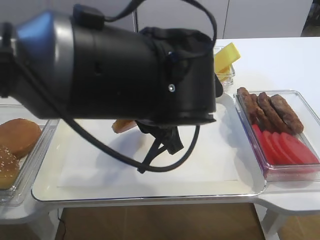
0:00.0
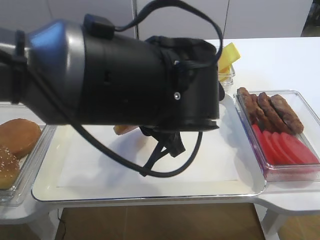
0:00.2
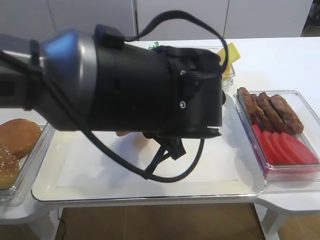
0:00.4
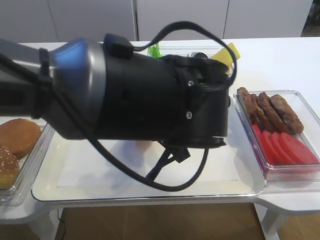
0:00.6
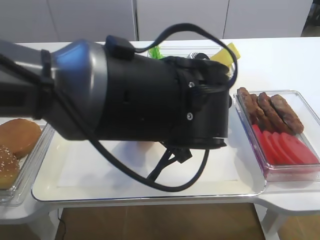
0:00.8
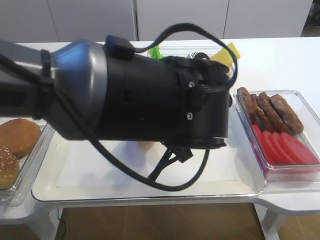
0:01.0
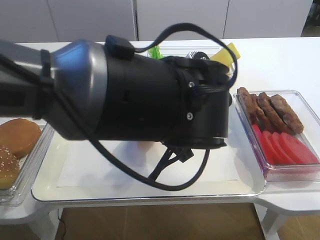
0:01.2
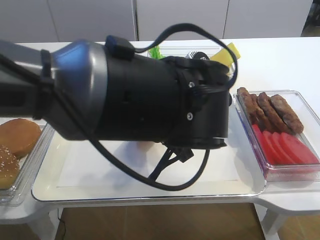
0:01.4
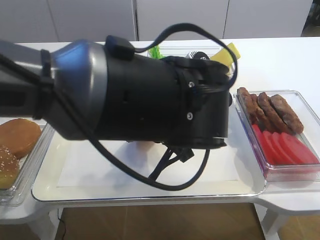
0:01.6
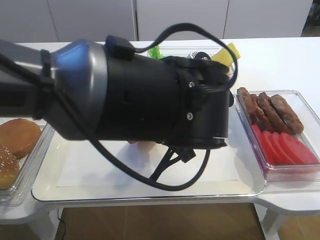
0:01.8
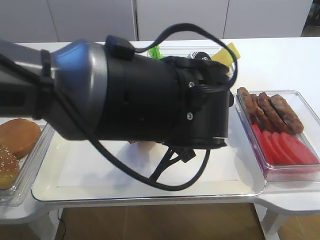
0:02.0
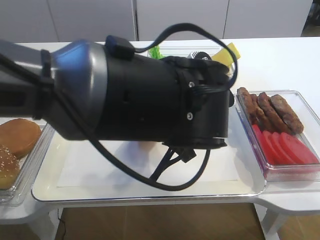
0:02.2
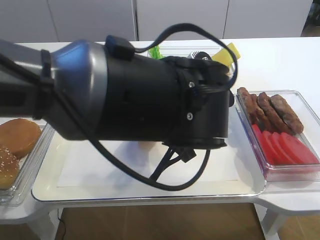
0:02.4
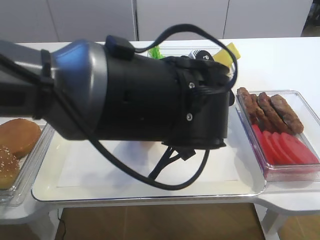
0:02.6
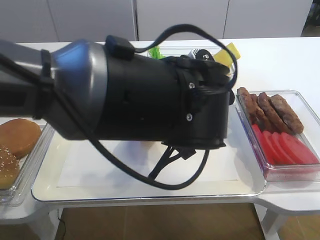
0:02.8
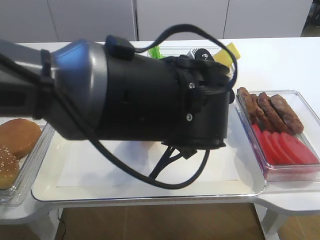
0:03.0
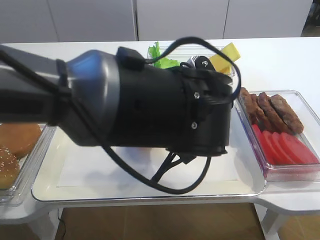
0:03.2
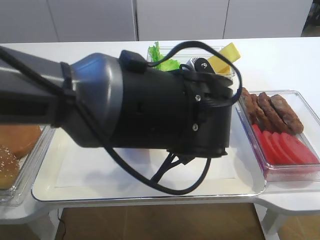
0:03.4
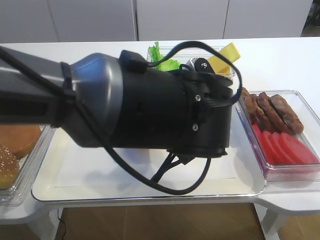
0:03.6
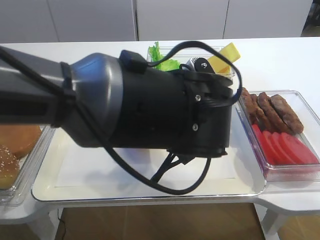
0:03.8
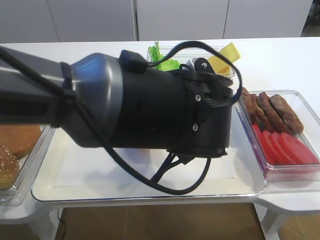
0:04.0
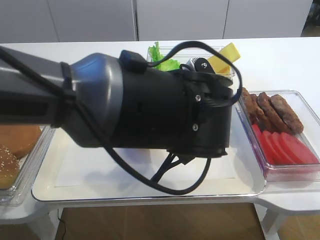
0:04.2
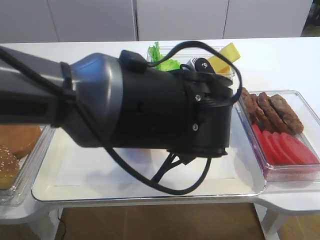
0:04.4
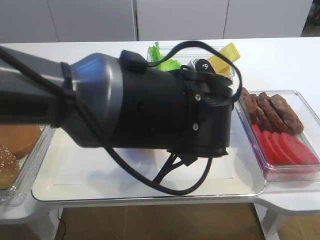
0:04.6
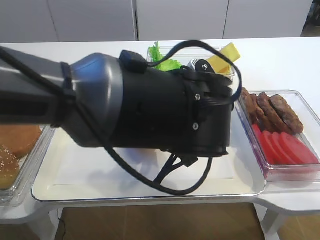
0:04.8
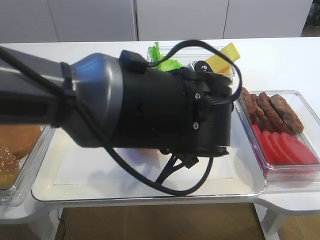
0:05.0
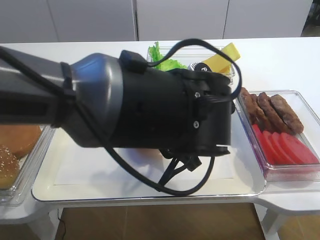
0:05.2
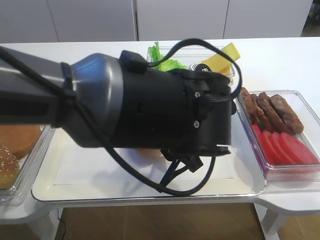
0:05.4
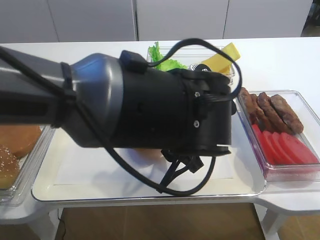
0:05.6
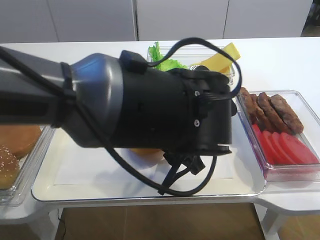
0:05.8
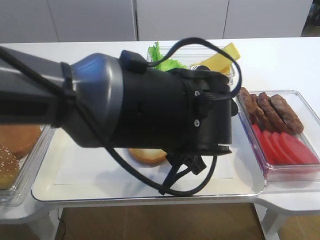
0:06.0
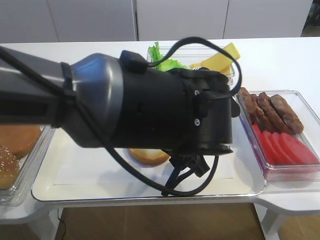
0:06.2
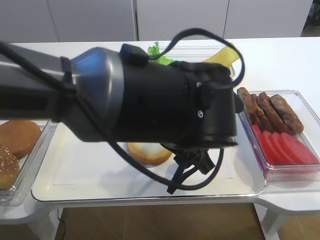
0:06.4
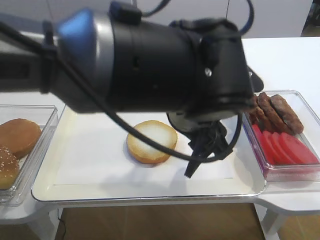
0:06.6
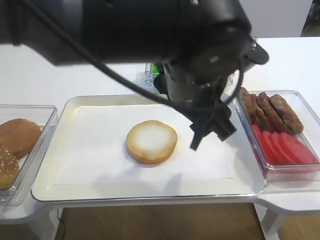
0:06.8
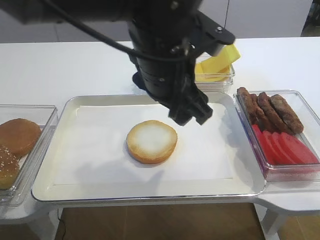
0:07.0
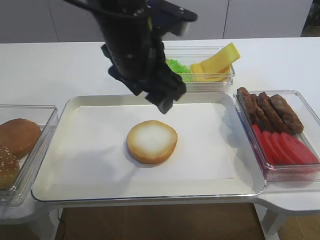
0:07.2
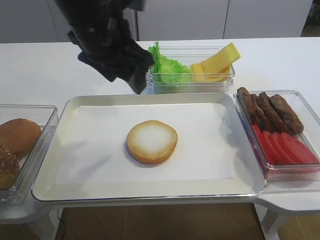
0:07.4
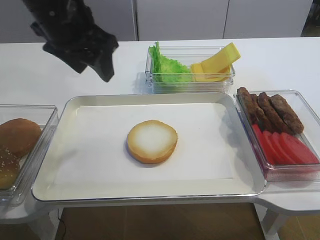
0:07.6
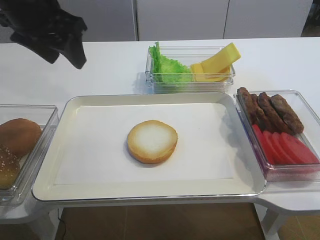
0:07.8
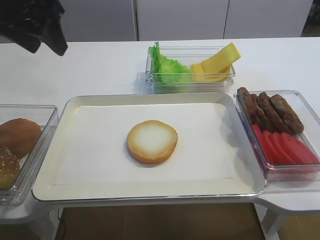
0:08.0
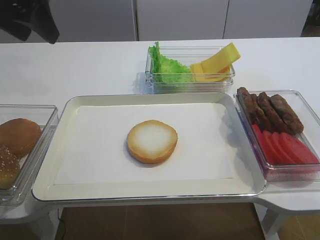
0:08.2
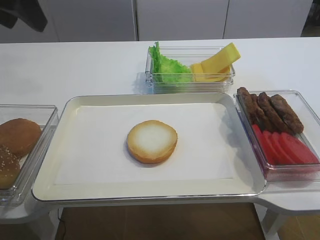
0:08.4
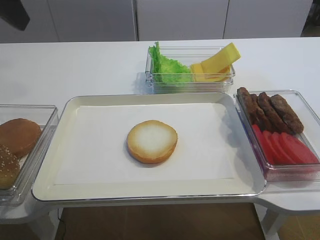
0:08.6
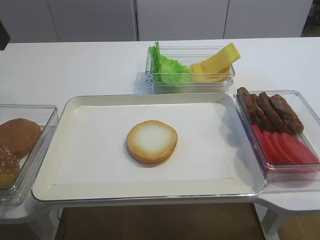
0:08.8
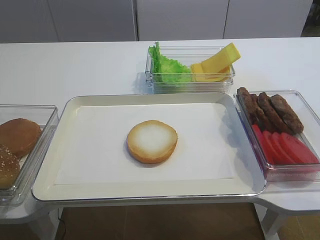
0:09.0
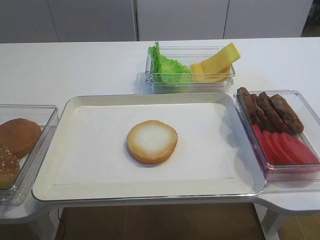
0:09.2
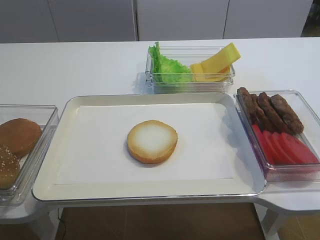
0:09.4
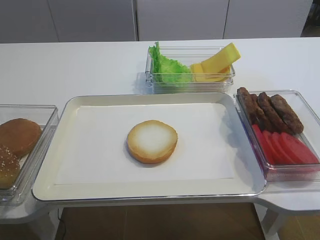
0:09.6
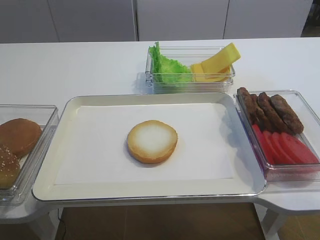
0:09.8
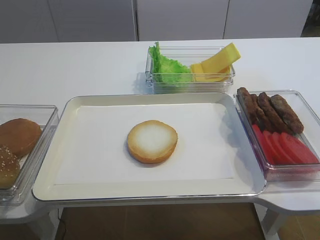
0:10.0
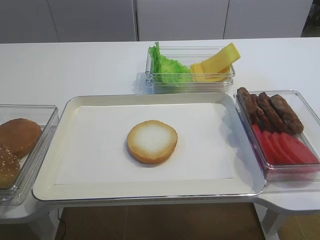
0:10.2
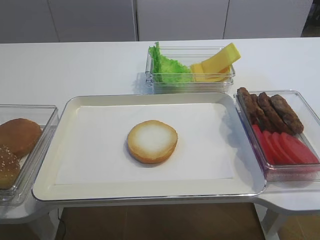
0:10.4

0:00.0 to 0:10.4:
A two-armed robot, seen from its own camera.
Step, 0:00.0 to 0:06.4: Place the bread slice on the tray with the left gripper.
0:01.4 to 0:04.4: Both grippers stay put.
0:04.4 to 0:06.0: The left gripper opens its fingers.
0:06.0 to 0:07.4: The left gripper shifts roughly 15 cm to the left, upward and forward.
0:07.4 to 0:09.0: The left gripper travels to the left and backward by approximately 20 cm.

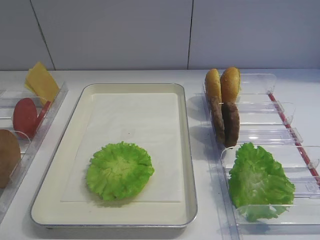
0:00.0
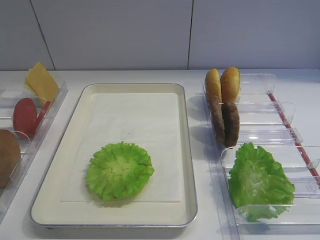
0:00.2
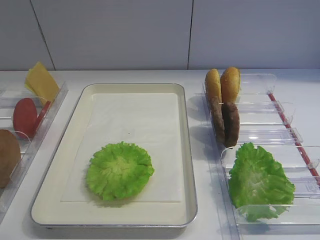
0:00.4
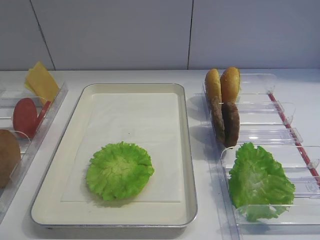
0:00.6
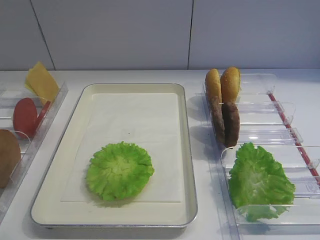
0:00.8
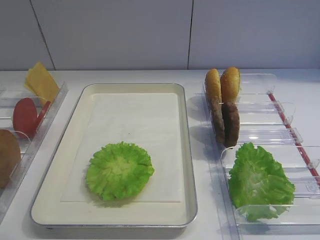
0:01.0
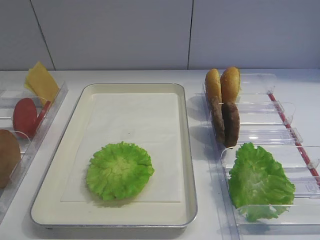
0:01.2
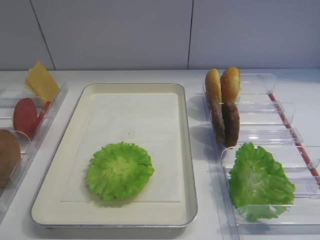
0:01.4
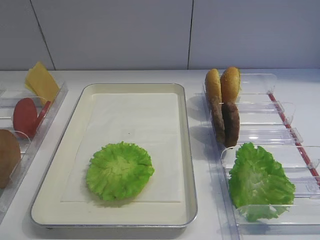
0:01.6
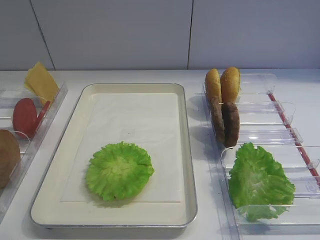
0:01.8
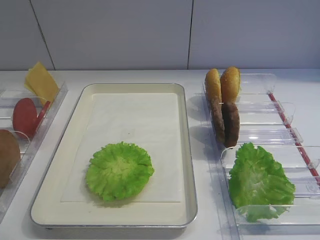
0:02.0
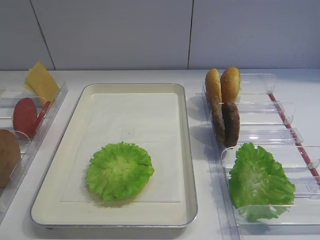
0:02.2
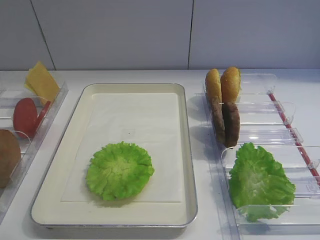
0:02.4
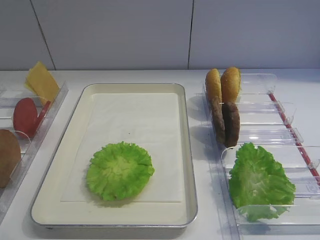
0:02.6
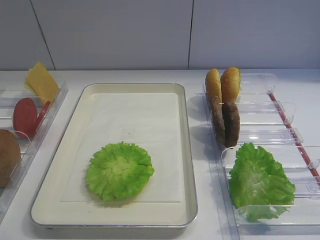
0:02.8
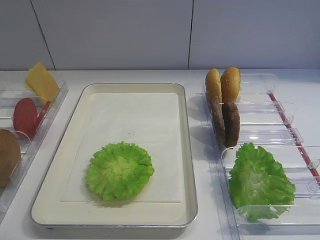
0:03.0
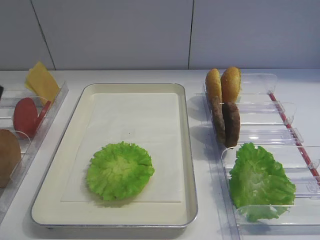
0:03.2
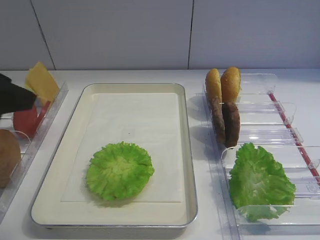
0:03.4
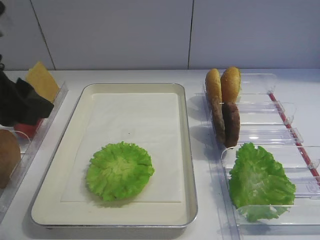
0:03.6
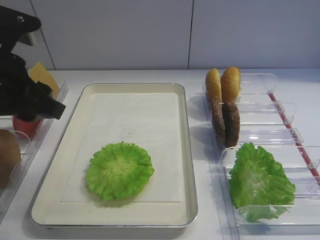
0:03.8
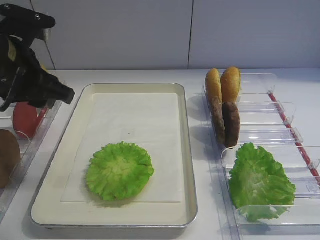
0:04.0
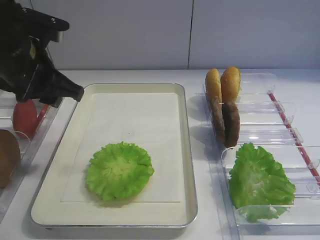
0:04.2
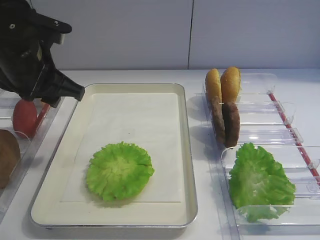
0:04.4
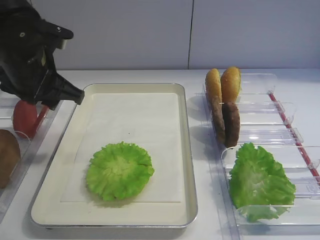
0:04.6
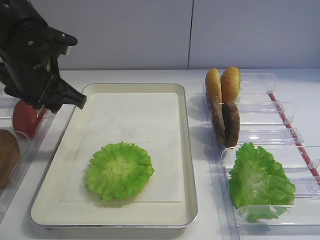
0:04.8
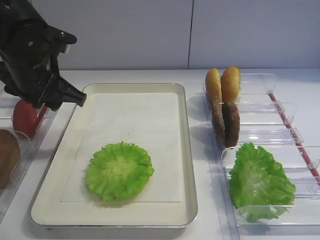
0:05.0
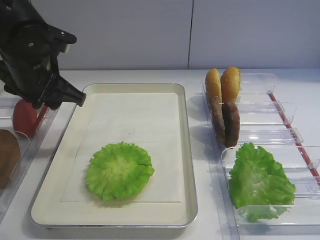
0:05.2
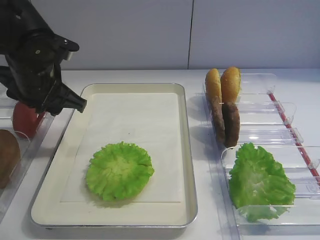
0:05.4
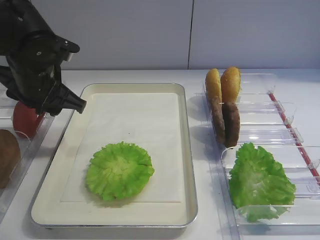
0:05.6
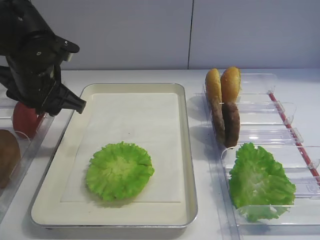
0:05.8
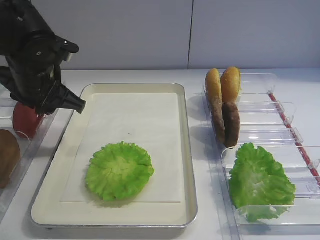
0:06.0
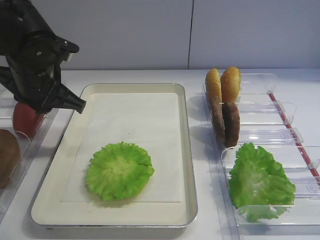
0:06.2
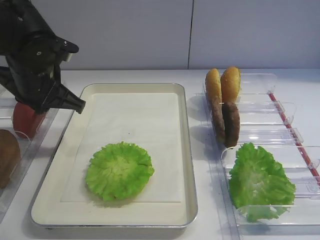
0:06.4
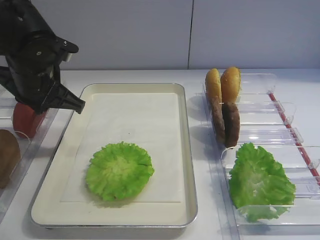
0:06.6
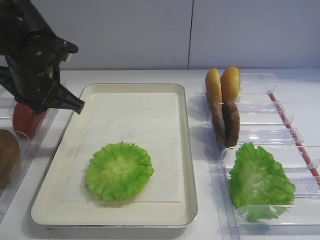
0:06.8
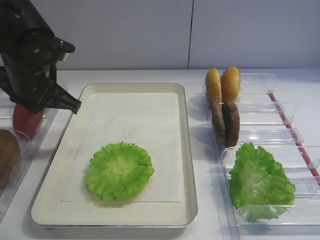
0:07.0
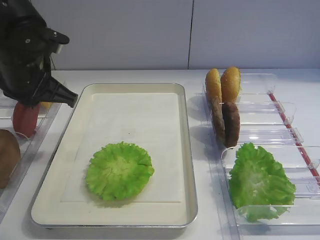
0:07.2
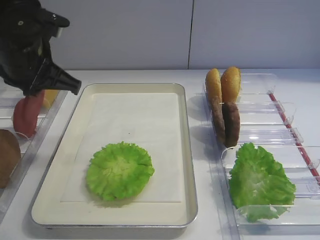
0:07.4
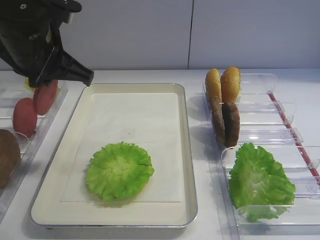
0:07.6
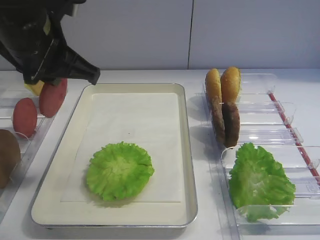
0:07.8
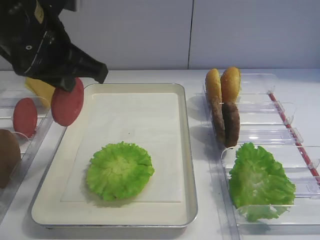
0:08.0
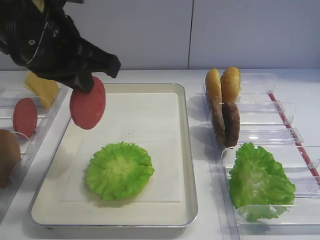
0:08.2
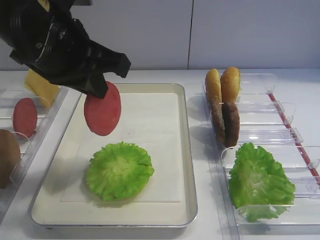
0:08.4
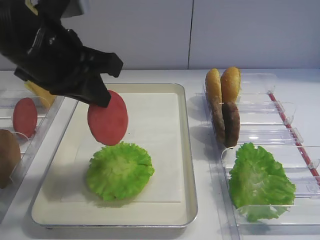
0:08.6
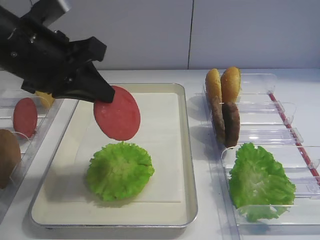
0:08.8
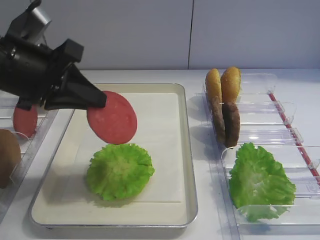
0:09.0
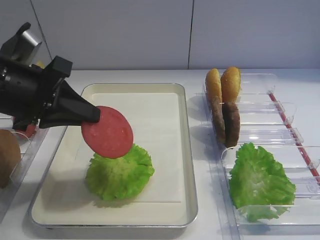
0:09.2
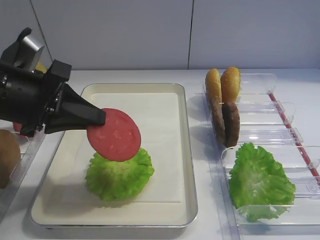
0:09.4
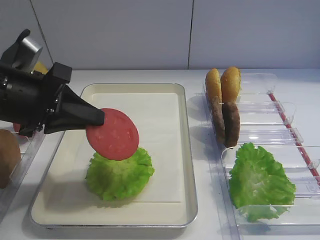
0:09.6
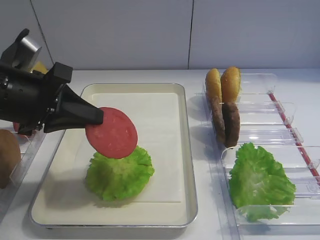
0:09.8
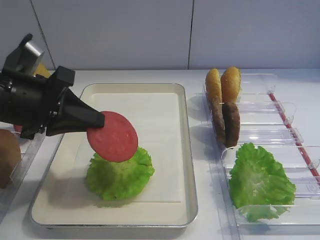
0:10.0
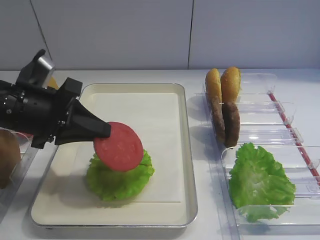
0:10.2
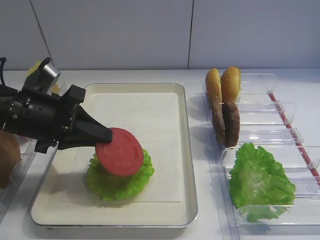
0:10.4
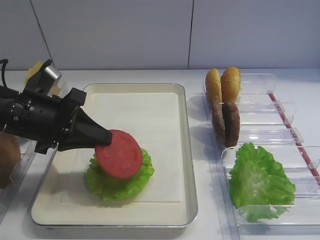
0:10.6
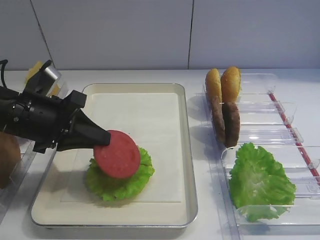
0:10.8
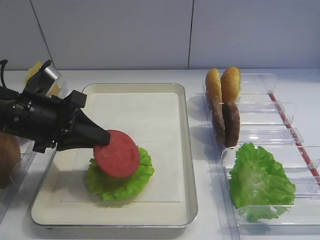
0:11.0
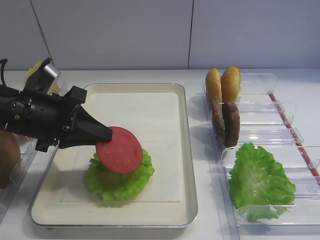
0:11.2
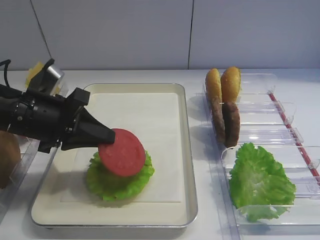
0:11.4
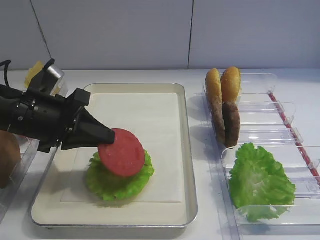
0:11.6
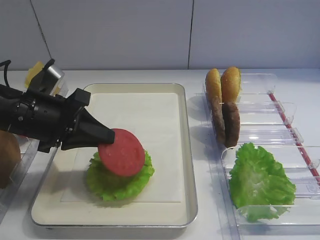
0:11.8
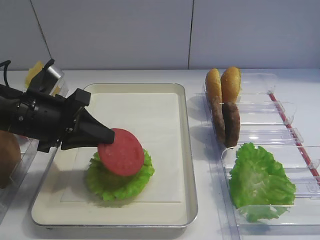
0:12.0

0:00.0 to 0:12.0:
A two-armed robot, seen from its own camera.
Step, 0:00.0 to 0:07.2: Pick up the tomato slice with the left gripper.
0:03.0 to 0:04.4: The left gripper goes some 20 cm forward.
0:04.4 to 0:06.0: The grippers stay close to where they were, moving slightly.
0:06.0 to 0:07.6: The left gripper goes roughly 5 cm upward, and closes up.
0:07.6 to 0:09.0: The left gripper ends up approximately 5 cm from where it was.
0:09.0 to 0:10.4: The left gripper moves downward, some 10 cm.
0:10.4 to 0:12.0: Neither gripper changes place.
